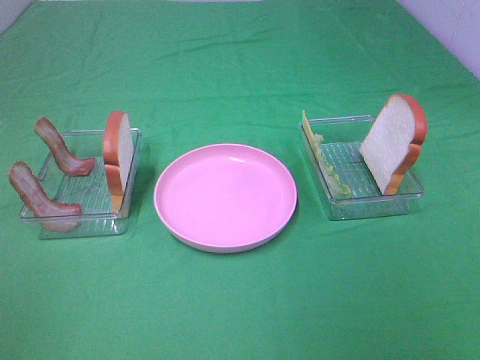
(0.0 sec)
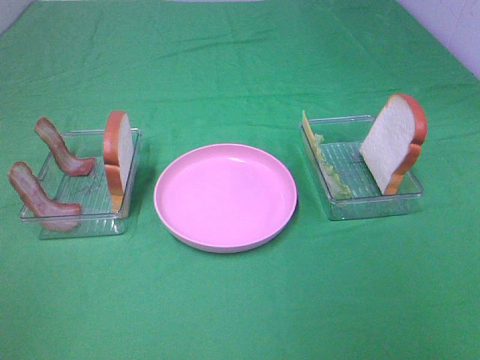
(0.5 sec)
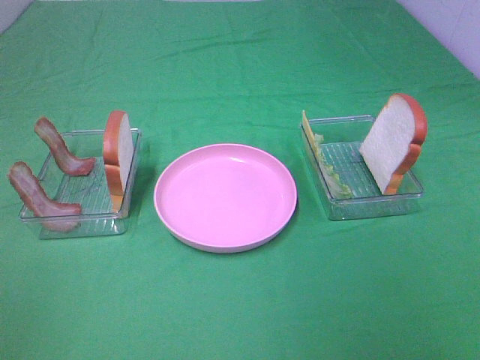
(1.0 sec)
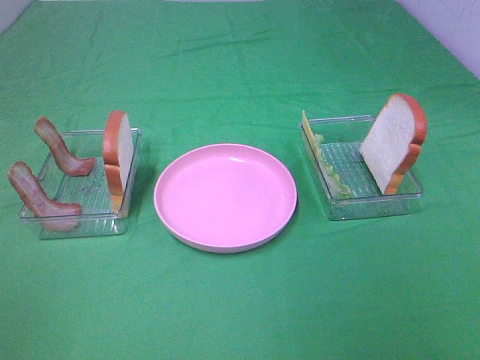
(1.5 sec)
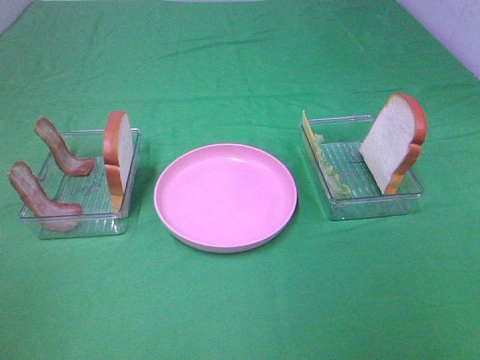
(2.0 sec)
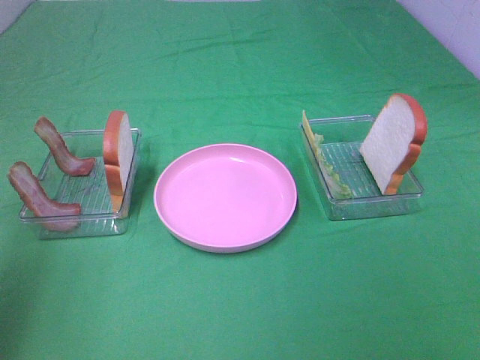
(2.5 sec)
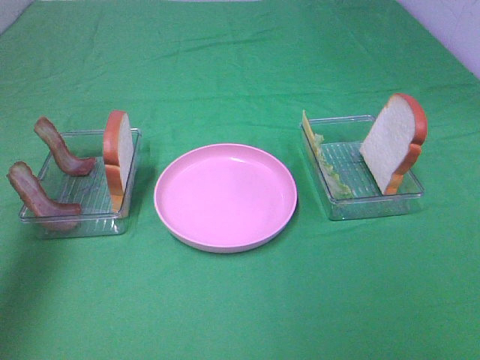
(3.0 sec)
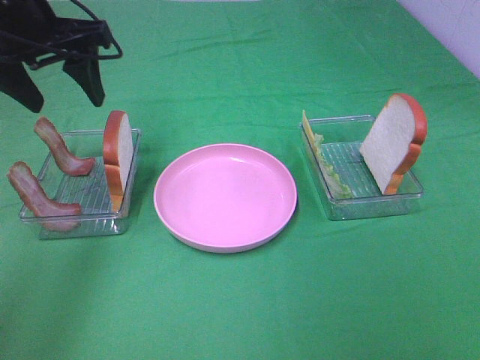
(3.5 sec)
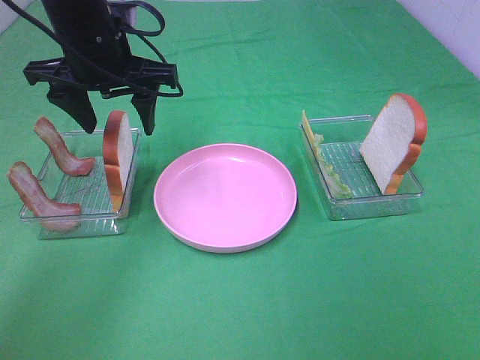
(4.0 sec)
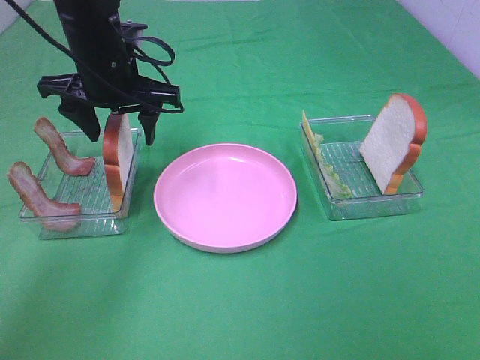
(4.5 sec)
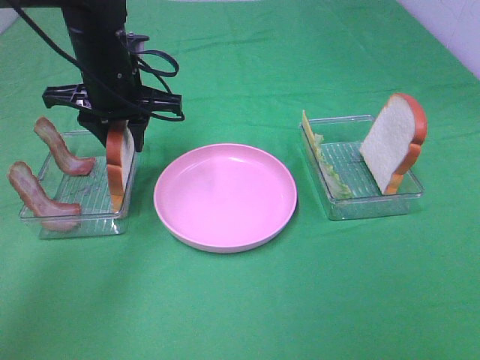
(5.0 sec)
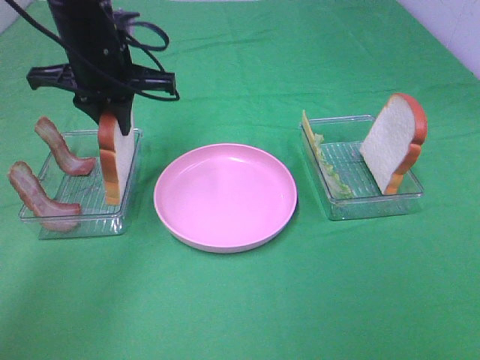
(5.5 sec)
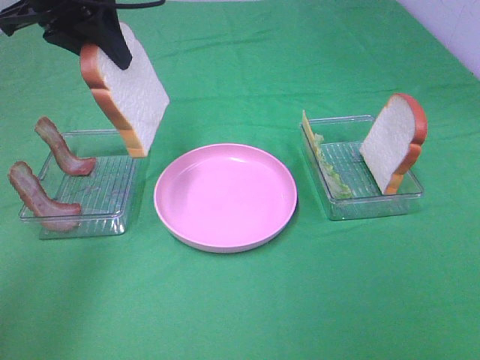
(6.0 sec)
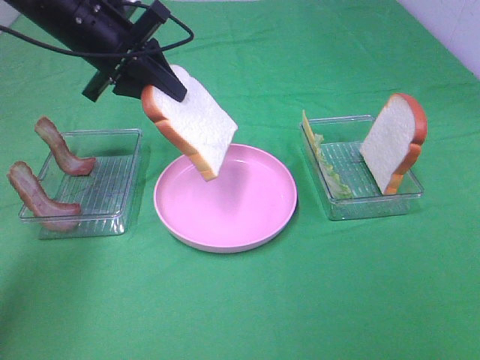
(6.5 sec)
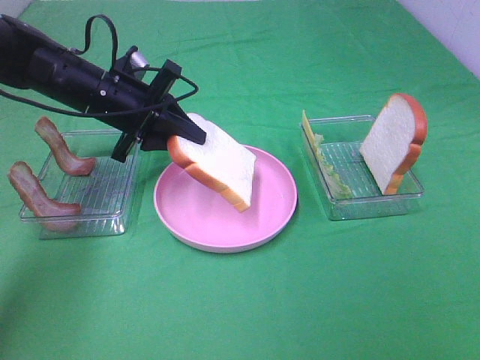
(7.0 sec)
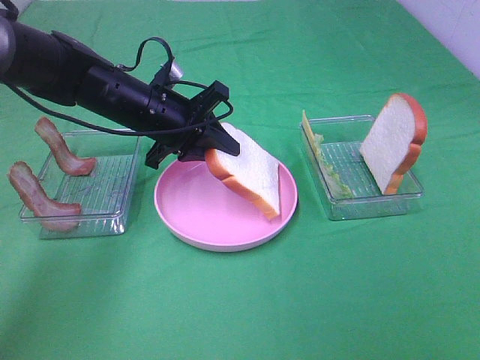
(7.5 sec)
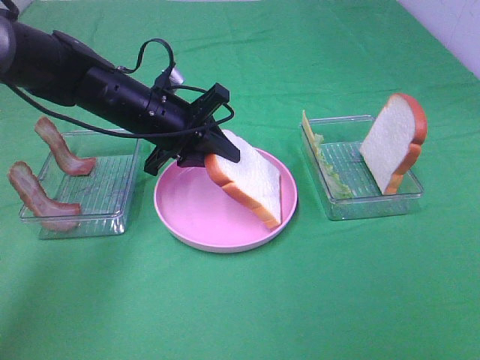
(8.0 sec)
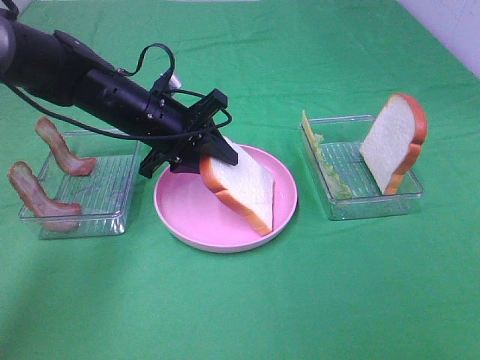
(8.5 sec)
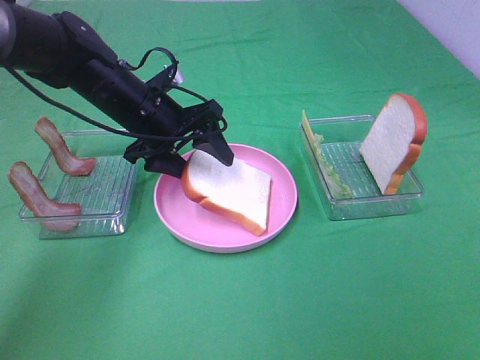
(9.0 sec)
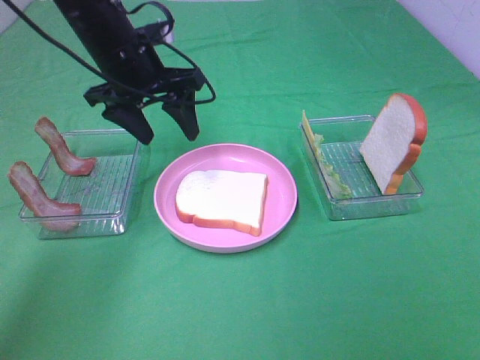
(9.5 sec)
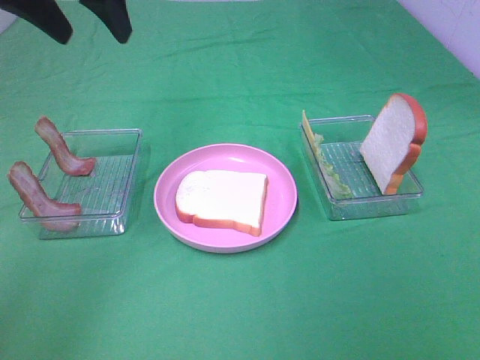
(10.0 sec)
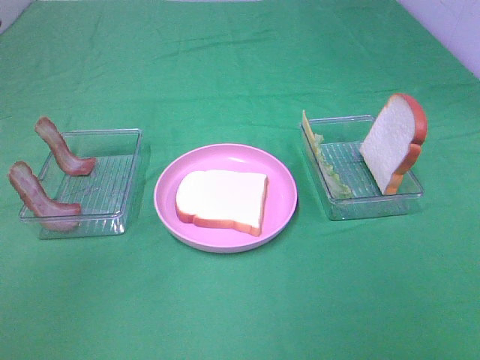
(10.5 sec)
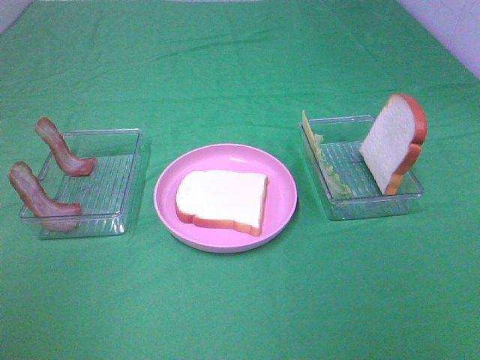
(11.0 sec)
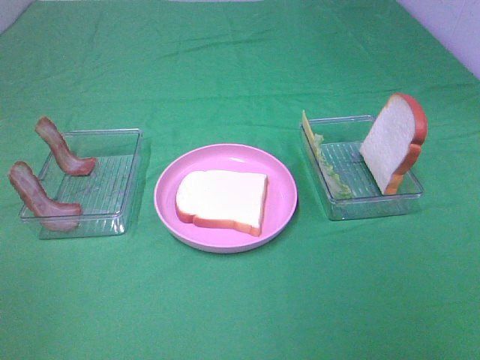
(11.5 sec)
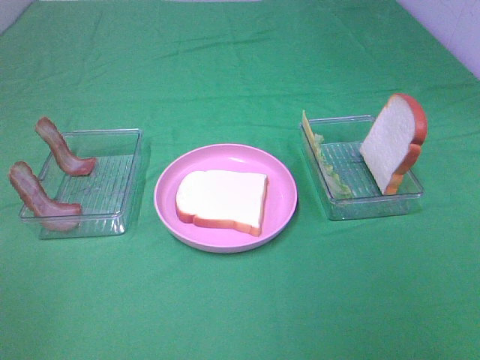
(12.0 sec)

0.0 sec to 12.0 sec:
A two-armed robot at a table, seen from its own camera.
Task of the whole recording: Make sandwiches.
Step, 0.0 sec to 5.0 sec: Left hand:grab the bread slice.
Step, 5.5 sec to 9.0 sec: Left hand:place the bread slice on the plate.
2.0 sec to 4.0 sec: The left gripper goes some 40 cm forward and to the right.
4.0 sec to 6.0 sec: The left gripper moves upward, about 10 cm, and closes up.
6.0 sec to 8.0 sec: The left gripper shifts some 20 cm downward.
8.0 sec to 10.0 sec: The left gripper shifts about 20 cm upward, and opens its fingers.
10.0 sec to 12.0 sec: The left gripper goes some 40 cm backward and to the left.

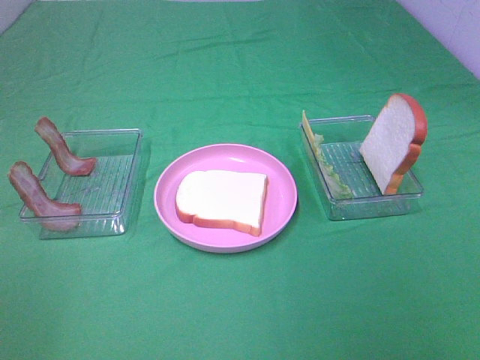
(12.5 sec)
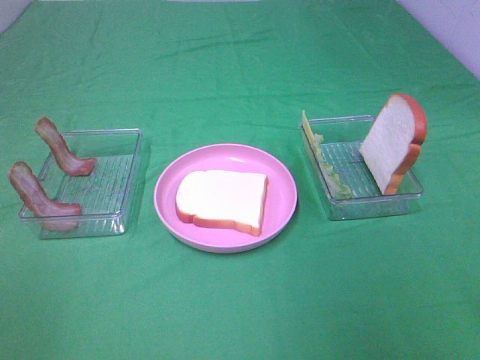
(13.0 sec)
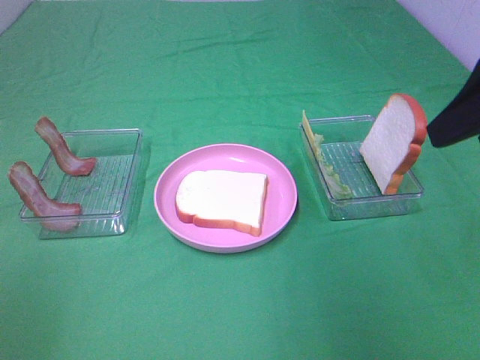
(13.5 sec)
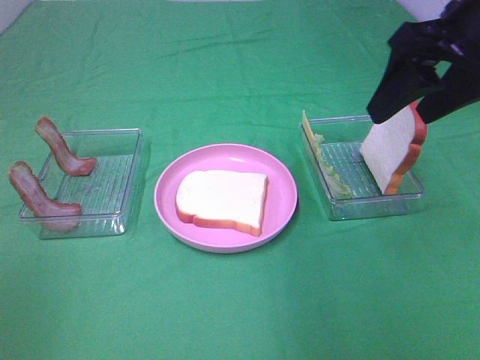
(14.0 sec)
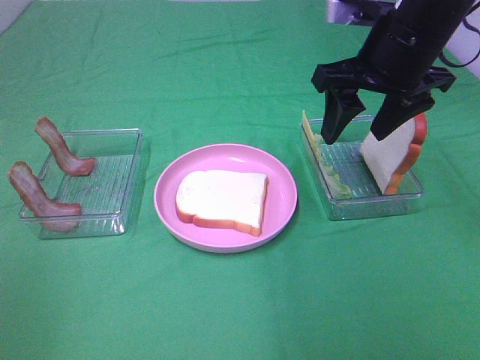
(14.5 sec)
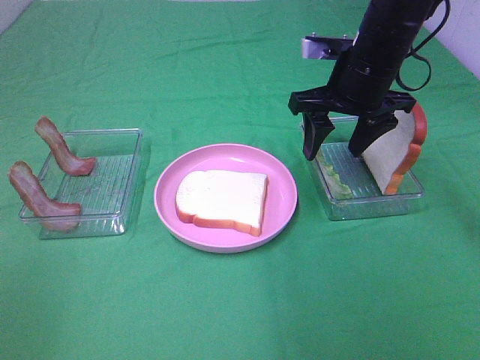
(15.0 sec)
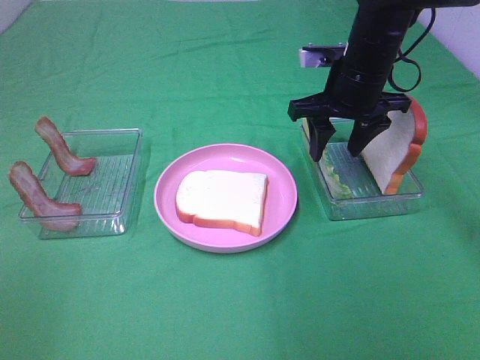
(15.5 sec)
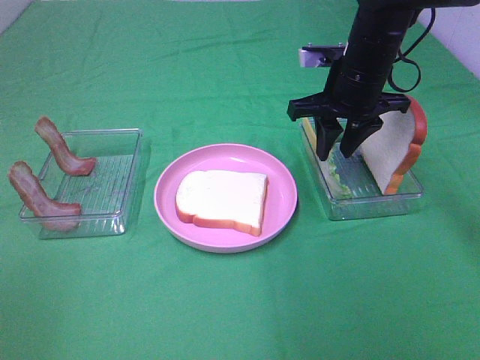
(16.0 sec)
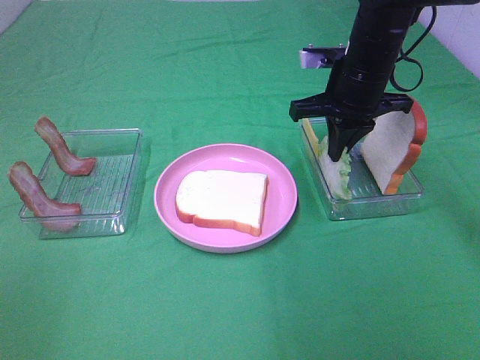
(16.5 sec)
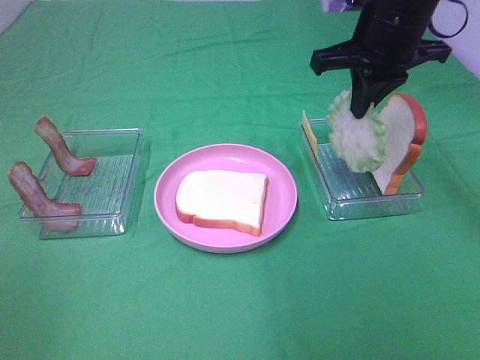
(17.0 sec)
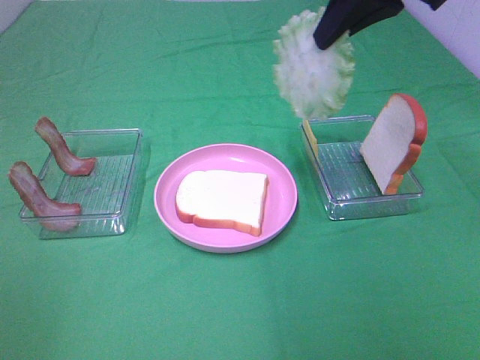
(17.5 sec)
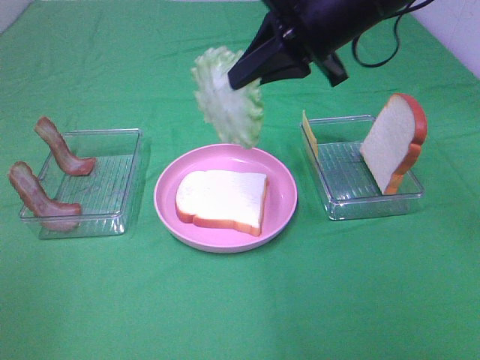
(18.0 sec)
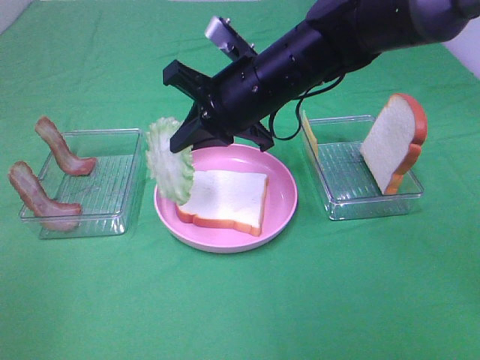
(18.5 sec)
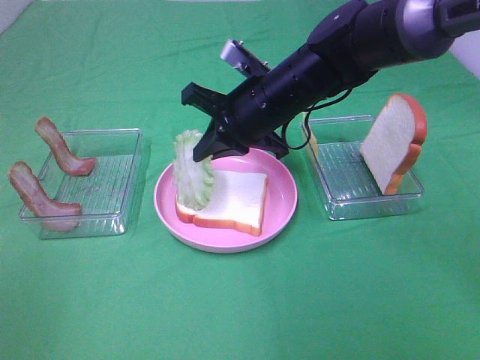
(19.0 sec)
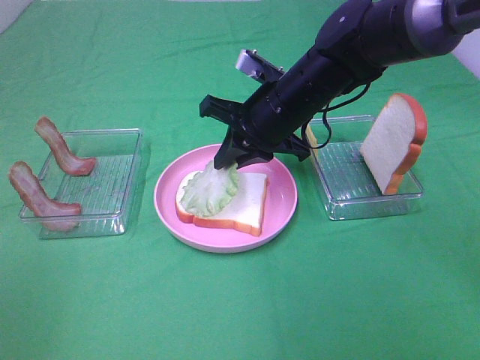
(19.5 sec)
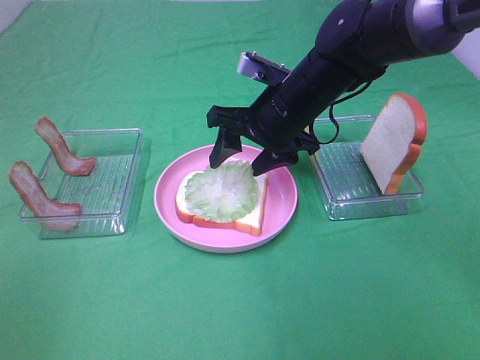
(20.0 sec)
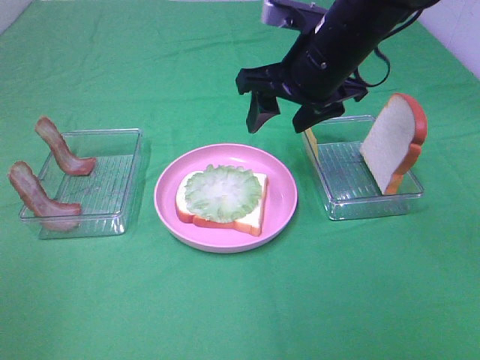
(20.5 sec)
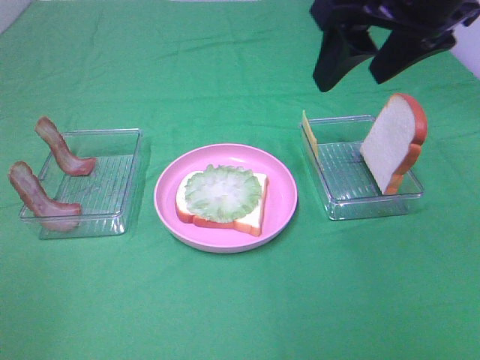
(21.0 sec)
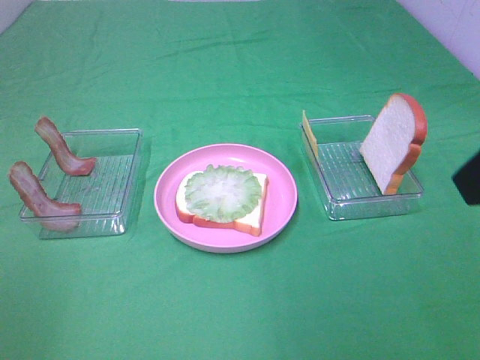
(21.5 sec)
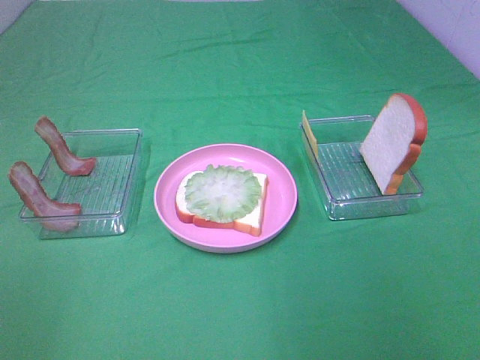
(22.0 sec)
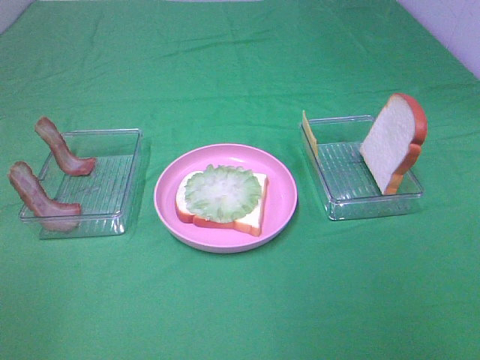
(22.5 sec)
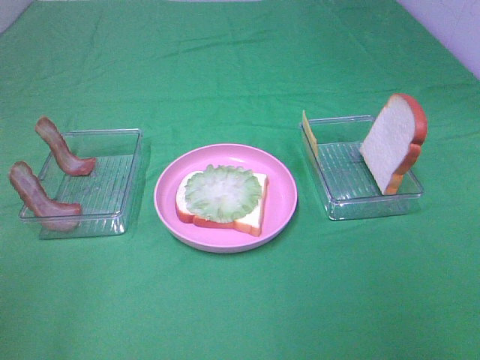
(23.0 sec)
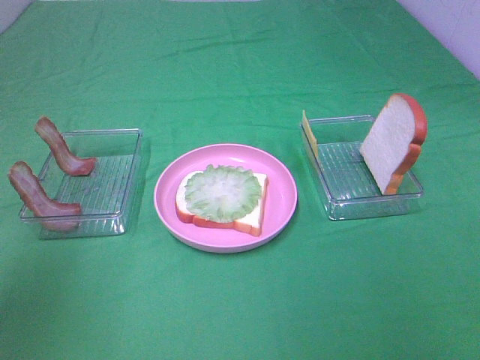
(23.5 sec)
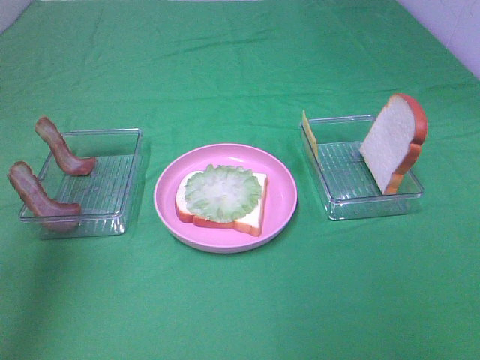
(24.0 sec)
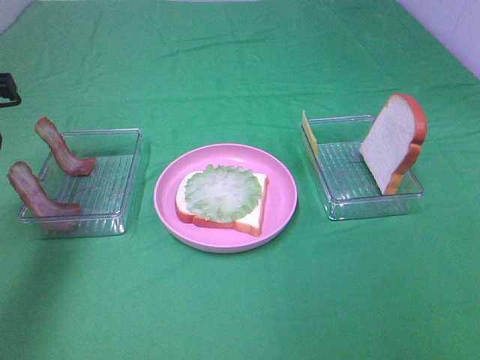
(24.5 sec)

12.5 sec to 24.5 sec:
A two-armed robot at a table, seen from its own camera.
Task of the whole recording: Make sandwiches.
Step, 12.5 sec to 16.0 sec: Right hand:grab the lettuce slice.
Step, 16.5 sec to 20.0 sec: Right hand:place the lettuce slice on the bread slice.
12.5 sec to 14.5 sec: The right gripper heads forward, covering about 35 cm.
14.5 sec to 16.5 sec: The right gripper moves downward and forward, approximately 10 cm, and closes.
16.5 sec to 18.5 sec: The right gripper goes some 15 cm to the left and backward, and reaches about 15 cm upward, then returns.
18.5 sec to 20.5 sec: The right gripper moves to the right, approximately 5 cm, and opens its fingers.
20.5 sec to 22.5 sec: The right gripper goes approximately 40 cm backward and to the right.
22.5 sec to 24.5 sec: The left gripper is displaced forward by roughly 30 cm.

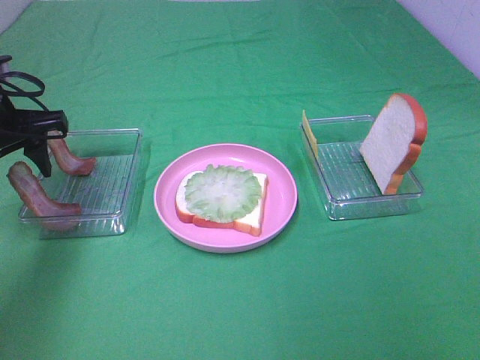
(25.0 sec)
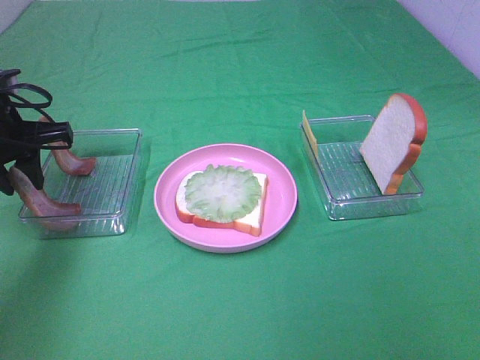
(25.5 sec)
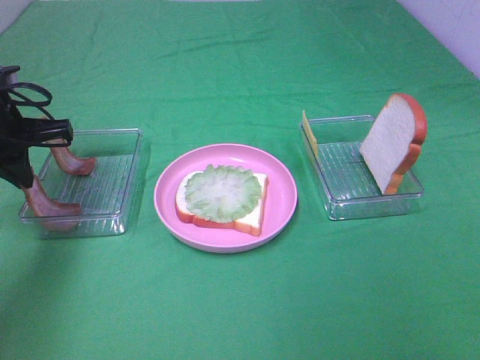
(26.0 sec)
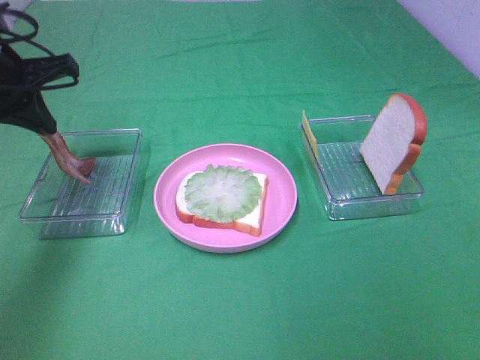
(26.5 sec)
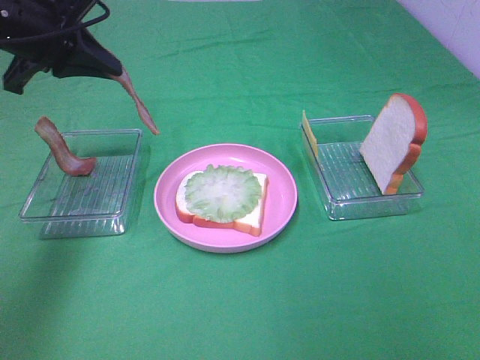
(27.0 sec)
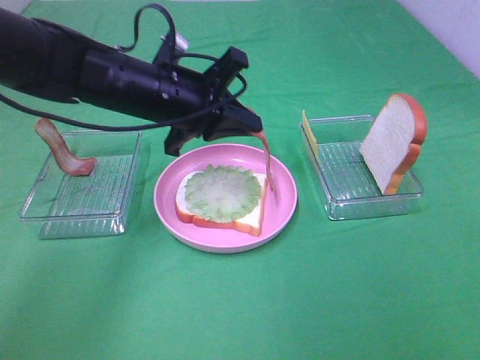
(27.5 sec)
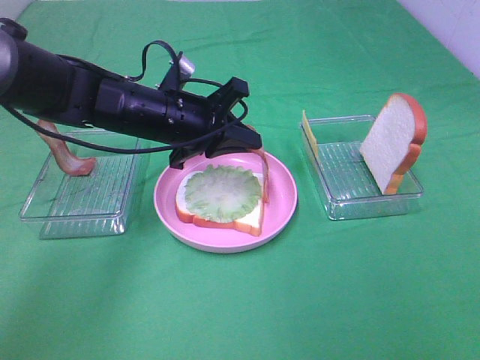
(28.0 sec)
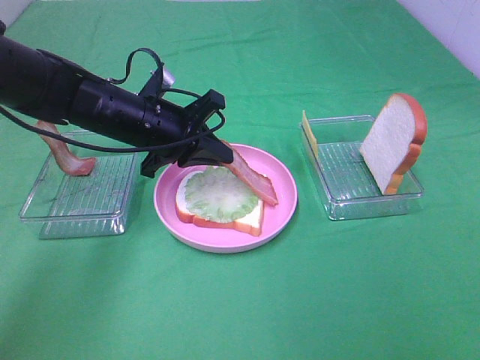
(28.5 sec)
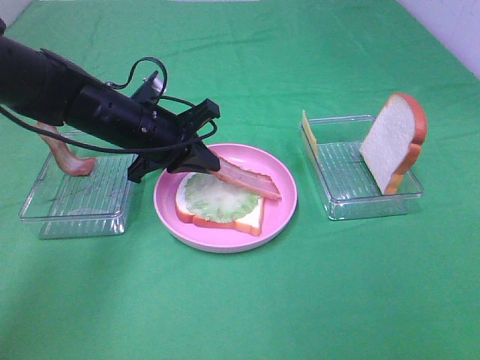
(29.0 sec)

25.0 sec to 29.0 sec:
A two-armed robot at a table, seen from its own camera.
Task of the whole recording: Make sandwiches.
25.0 sec to 27.0 sec: The left gripper goes approximately 10 cm upward and to the right, and closes up.
27.0 sec to 29.0 sec: The left gripper goes approximately 15 cm downward and to the right.
